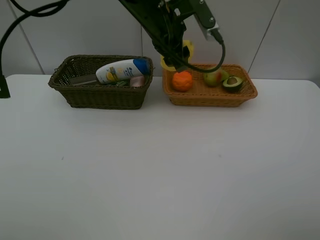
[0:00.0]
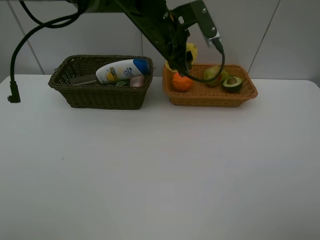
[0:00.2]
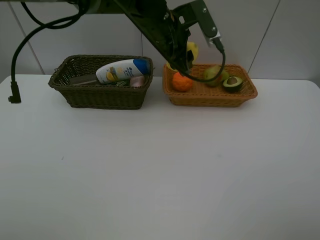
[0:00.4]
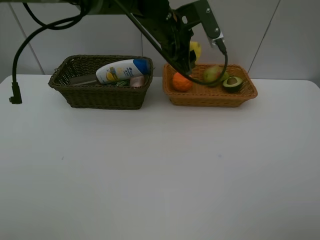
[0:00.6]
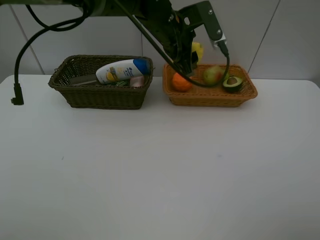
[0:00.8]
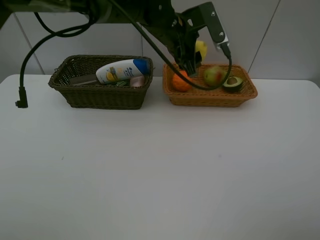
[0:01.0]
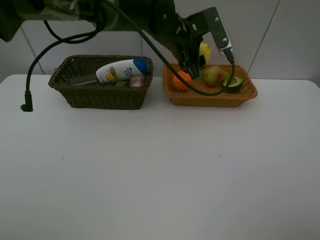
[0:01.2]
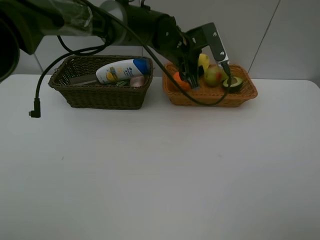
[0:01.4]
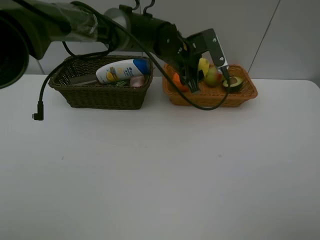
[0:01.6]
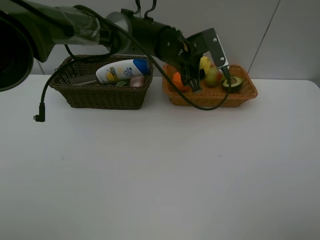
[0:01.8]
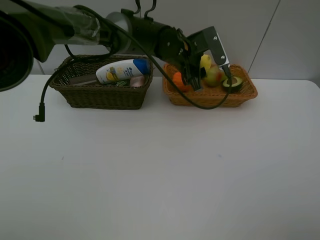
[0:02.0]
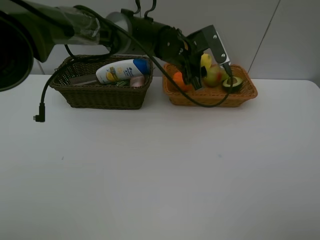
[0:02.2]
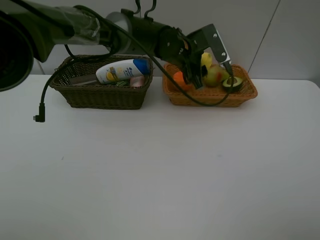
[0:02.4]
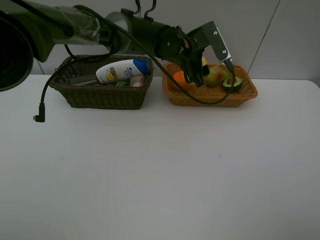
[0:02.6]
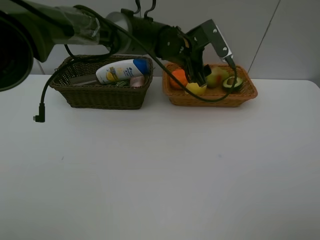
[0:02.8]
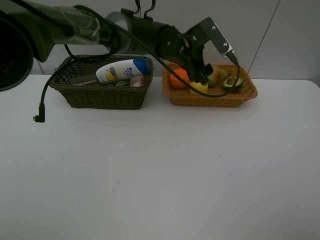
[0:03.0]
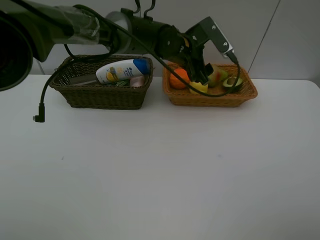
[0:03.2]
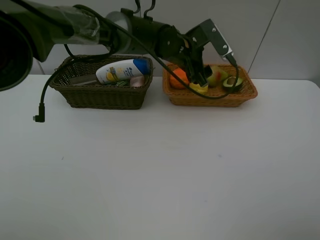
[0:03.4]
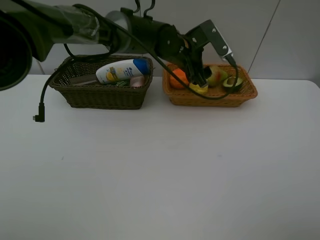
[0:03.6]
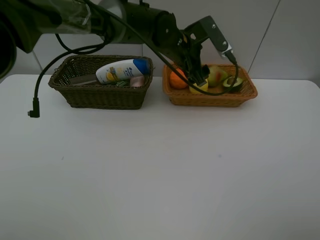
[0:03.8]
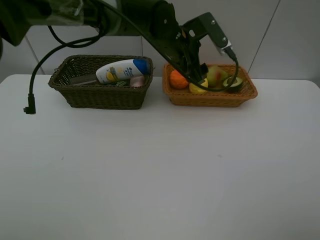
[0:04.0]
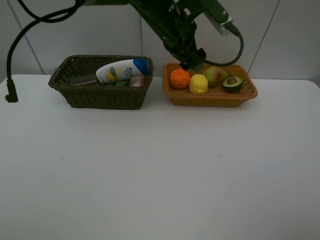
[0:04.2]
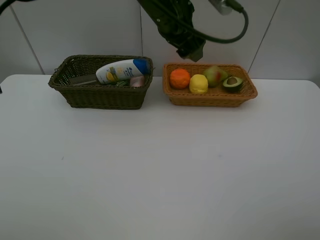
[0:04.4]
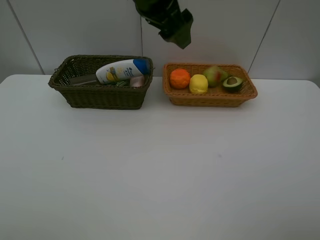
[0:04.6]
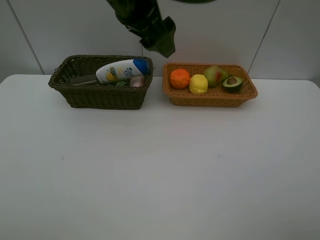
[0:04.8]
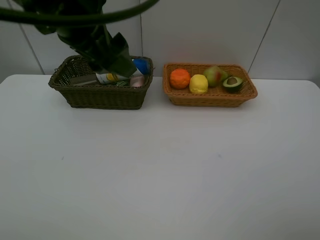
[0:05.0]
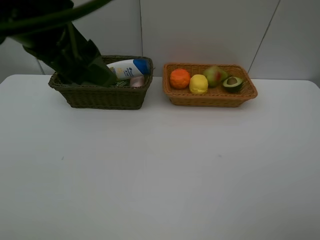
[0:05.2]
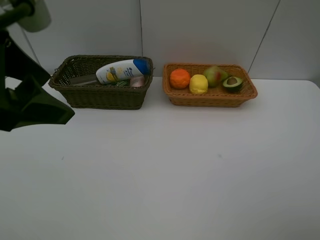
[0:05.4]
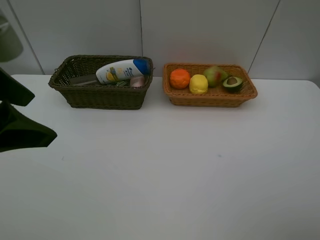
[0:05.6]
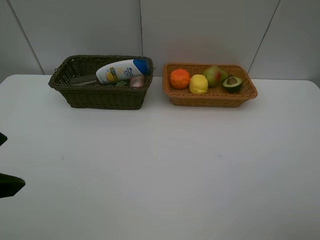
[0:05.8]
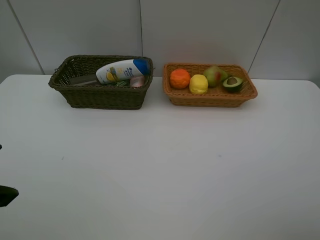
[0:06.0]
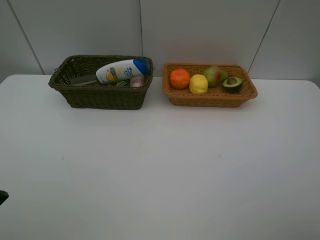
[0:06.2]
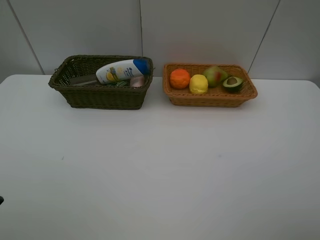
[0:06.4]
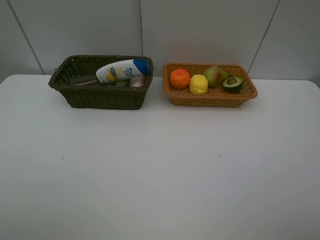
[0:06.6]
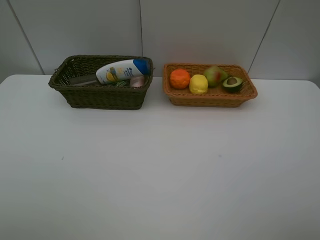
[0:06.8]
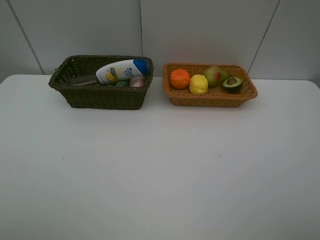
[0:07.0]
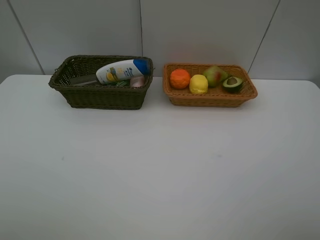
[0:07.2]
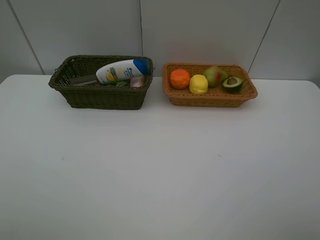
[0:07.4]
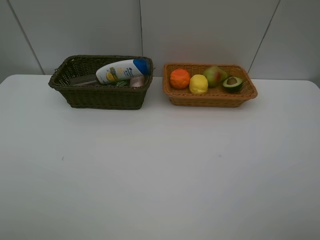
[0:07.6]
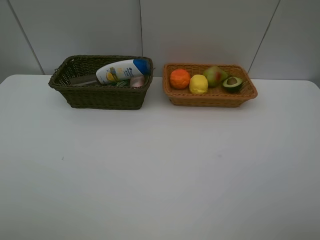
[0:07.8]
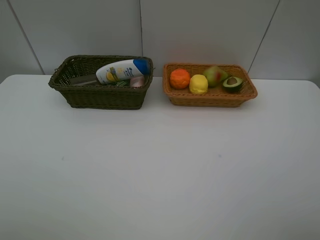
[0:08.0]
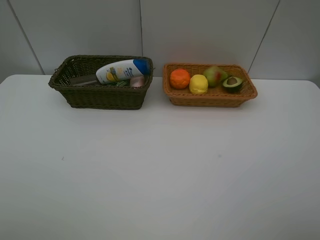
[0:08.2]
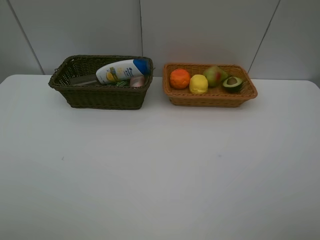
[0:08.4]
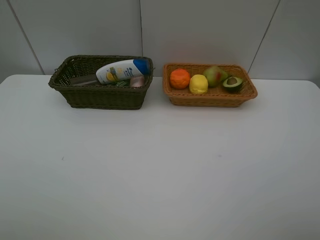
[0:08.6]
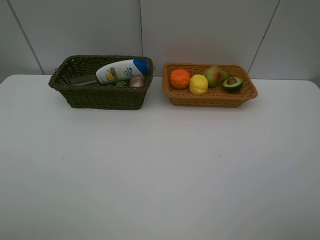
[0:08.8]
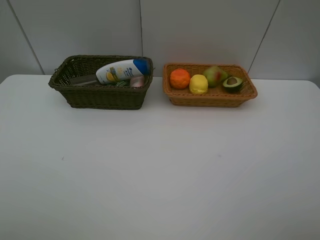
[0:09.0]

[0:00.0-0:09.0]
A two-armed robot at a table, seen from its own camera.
Task of the whole recording: Place multiple objects separately in different baskets.
Step, 0:00.0 to 0:03.0: Place the lemon in the light basket with left gripper.
0:00.0 to 0:01.6: The left gripper moves downward, roughly 10 cm.
0:01.6 to 0:03.0: There are only small adjustments of the grippers.
0:03.0 to 0:04.4: The left gripper travels upward and backward by approximately 10 cm.
0:04.4 to 0:06.0: The left gripper shifts roughly 35 cm backward and to the left.
0:07.6 to 0:09.0: Both grippers stay put.

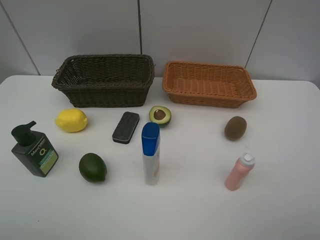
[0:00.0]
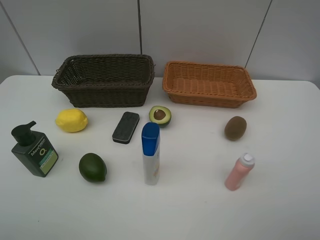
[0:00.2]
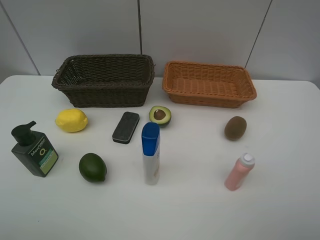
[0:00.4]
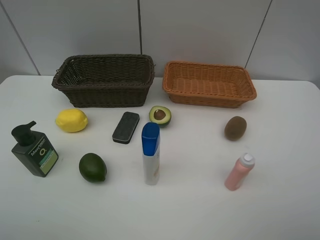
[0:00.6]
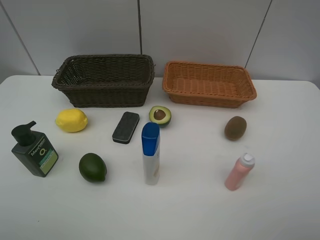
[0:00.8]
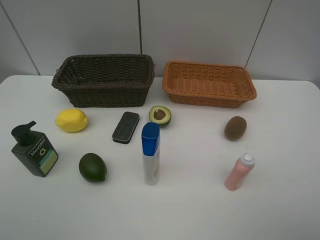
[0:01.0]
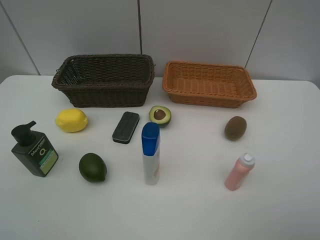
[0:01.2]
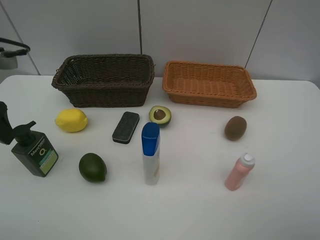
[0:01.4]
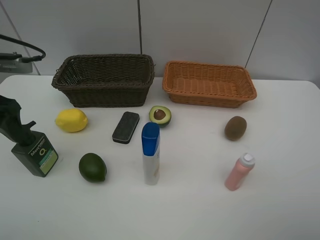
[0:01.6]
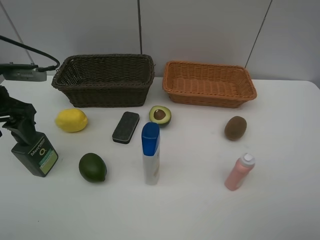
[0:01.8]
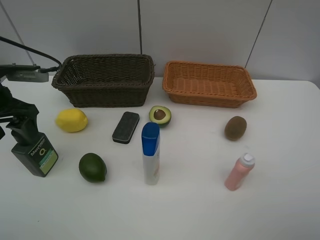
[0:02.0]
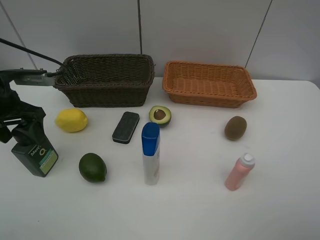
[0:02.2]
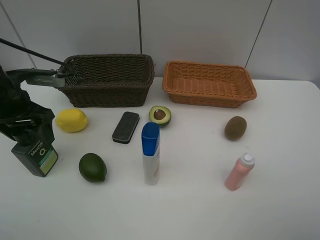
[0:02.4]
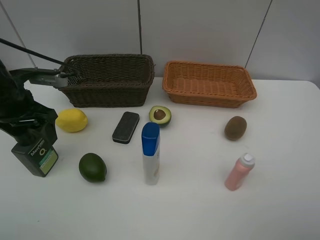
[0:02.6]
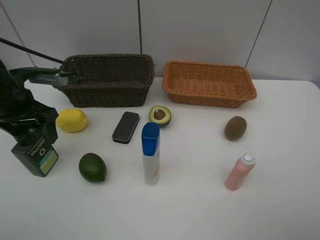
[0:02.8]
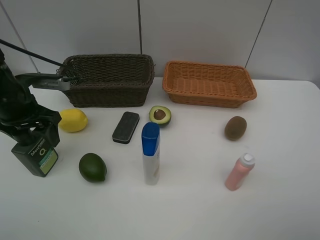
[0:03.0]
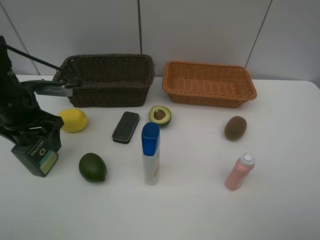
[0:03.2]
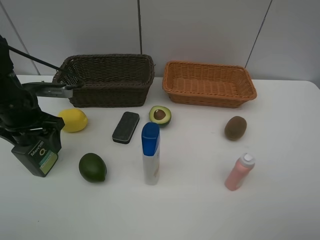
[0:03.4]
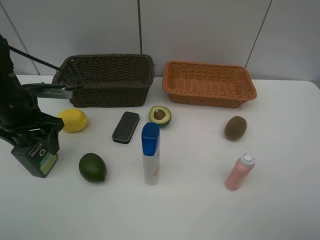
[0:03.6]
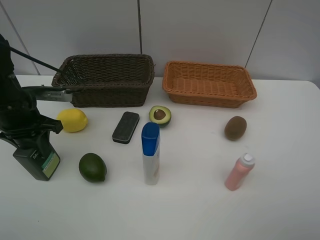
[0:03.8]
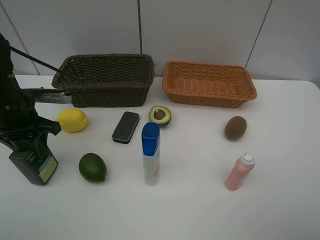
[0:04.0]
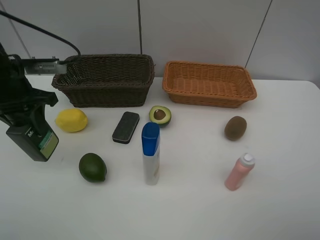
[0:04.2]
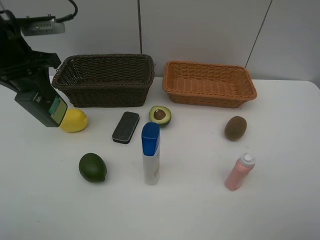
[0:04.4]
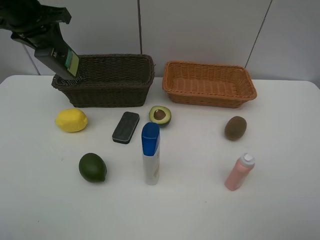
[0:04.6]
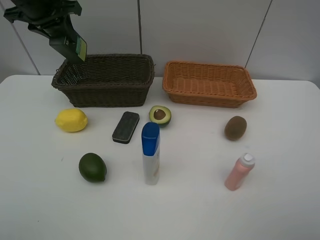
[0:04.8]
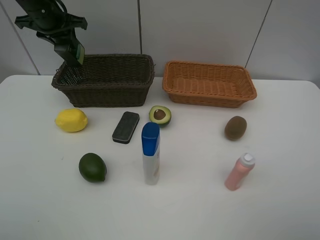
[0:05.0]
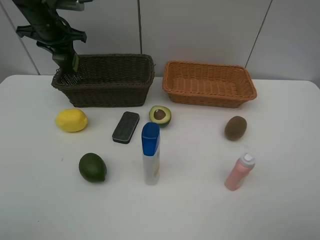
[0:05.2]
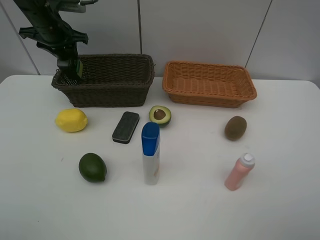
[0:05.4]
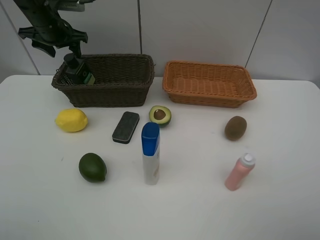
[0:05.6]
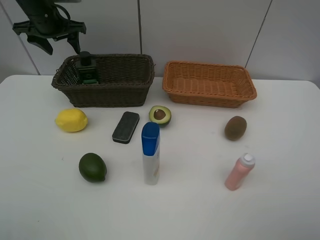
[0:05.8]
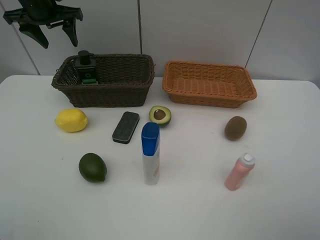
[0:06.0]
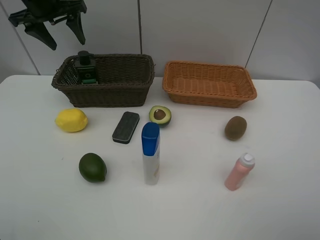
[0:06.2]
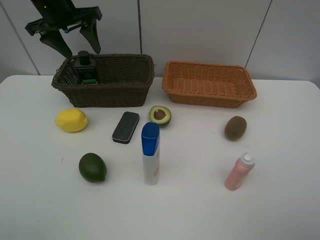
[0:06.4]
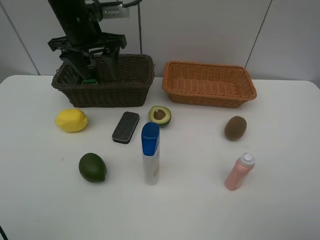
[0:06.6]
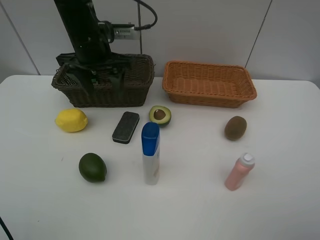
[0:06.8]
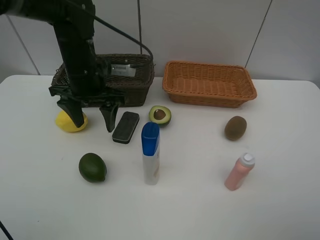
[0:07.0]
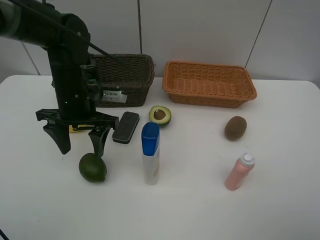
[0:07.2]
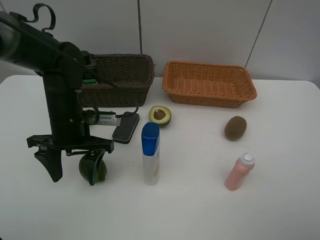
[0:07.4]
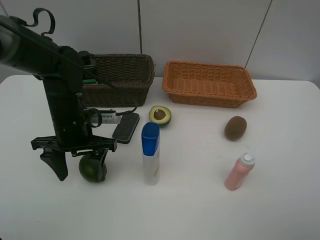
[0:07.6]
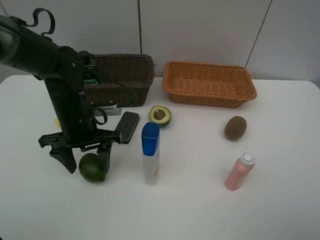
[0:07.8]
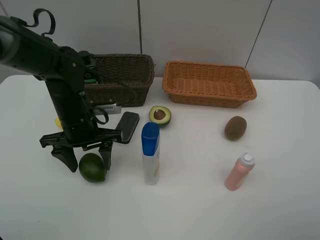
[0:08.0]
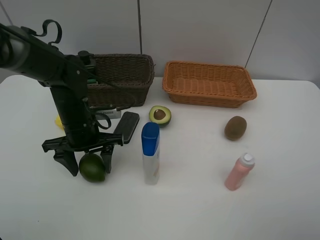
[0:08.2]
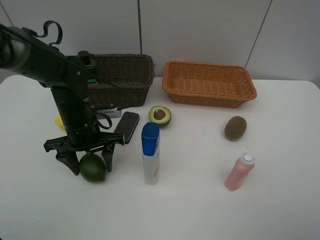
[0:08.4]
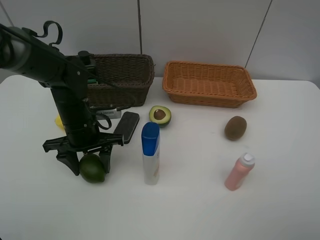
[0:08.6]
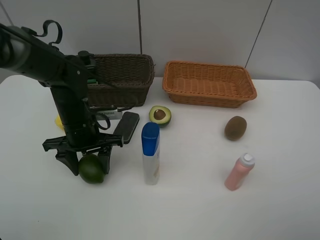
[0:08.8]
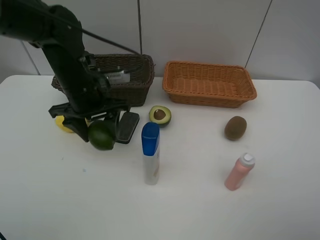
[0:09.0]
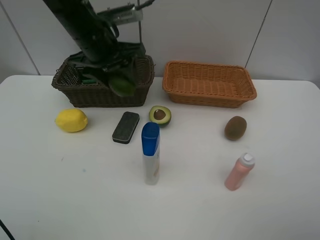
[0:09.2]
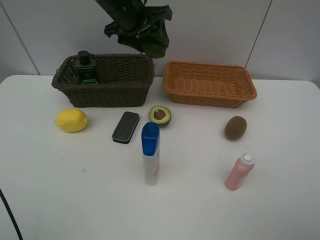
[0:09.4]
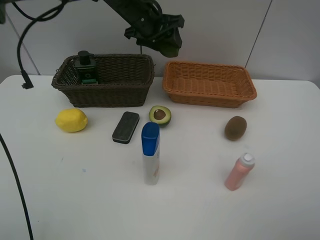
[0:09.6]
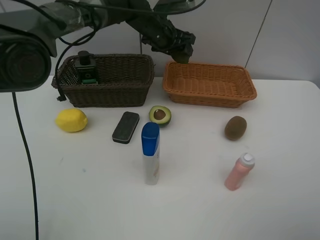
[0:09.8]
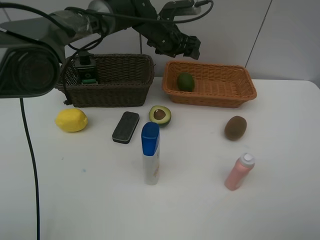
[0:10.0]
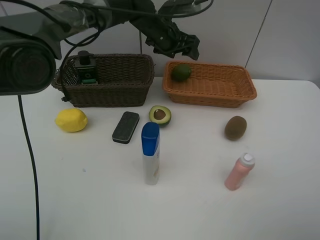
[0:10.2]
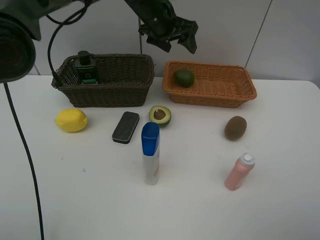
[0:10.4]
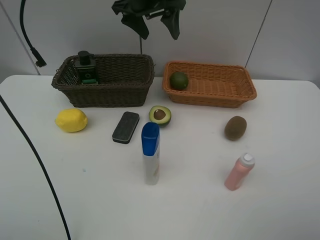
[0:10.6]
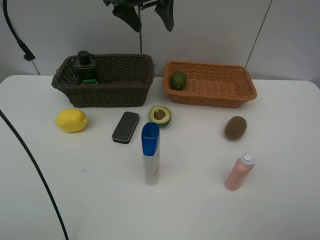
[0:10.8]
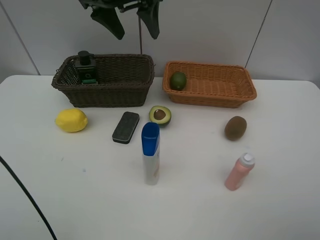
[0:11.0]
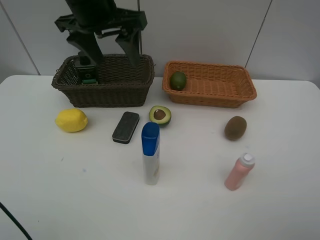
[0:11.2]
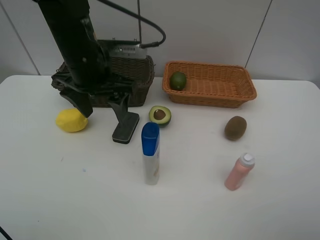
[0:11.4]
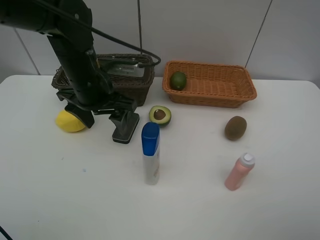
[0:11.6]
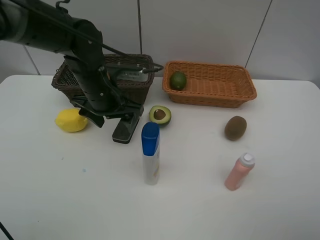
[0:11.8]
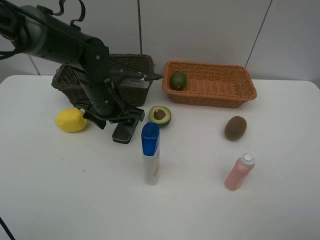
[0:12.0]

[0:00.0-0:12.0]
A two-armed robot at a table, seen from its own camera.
Task of the whole recording: Place multiple objects separately in different baskets.
Step, 0:00.0 to 0:04.0: Pick up the hard facial cleanser with left gripper.
Step, 0:04.2 to 0:05.6: Place the hard facial cleanser in the dark basket with left gripper.
Step, 0:05.8 to 0:08.8: Pick up the lime with left gripper.
Step, 0:09.0 to 0:10.0: Place the lime in the light basket with left gripper.
0:00.0 to 0:01.6: The left gripper travels forward by approximately 25 cm.
0:01.6 to 0:03.0: The left gripper is displaced downward by roughly 5 cm.
0:03.0 to 0:04.4: The left gripper is displaced upward by approximately 10 cm, and closes.
0:04.4 to 0:06.0: The left gripper shifts about 15 cm forward, and opens up.
0:06.0 to 0:07.6: The left gripper goes some 30 cm backward, downward and to the right.
0:07.6 to 0:09.0: The left gripper travels upward by about 5 cm.
0:09.0 to 0:10.4: The left gripper is displaced forward, to the right and upward by roughly 20 cm.
0:10.4 to 0:12.0: The left gripper moves downward, backward and to the left, some 20 cm.

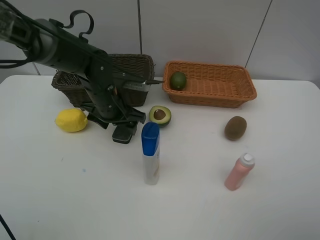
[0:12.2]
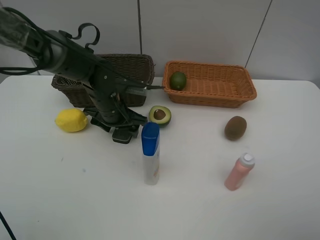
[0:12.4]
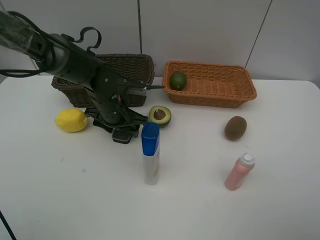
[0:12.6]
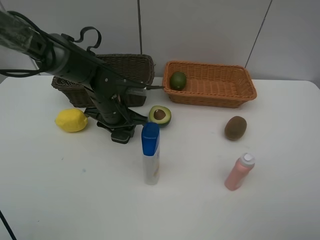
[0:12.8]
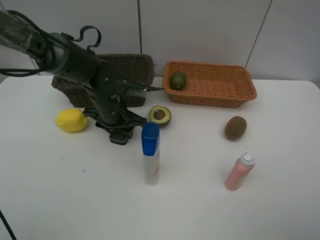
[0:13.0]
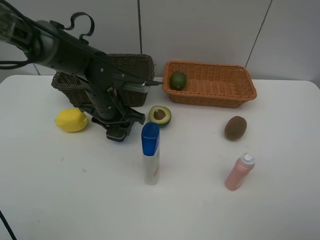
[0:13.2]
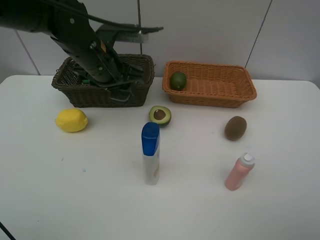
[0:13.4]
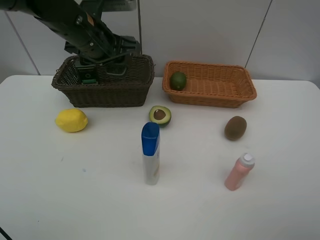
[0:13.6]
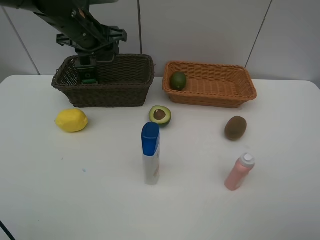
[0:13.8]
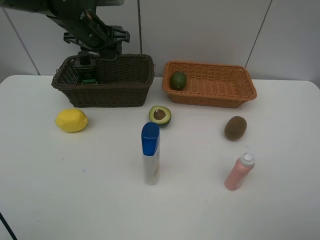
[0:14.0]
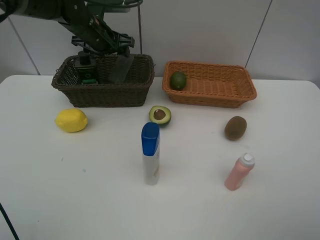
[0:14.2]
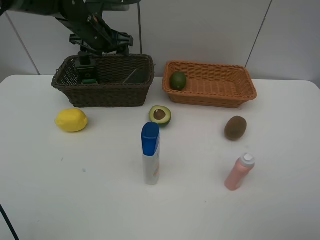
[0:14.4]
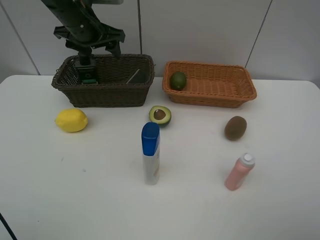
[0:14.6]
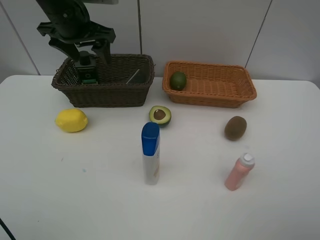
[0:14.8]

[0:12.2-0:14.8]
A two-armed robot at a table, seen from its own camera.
Task of the whole recording: Place multiple objects separately in different baskets.
Step, 0:13.4 to 0:14.4: Place the blackboard eraser in the dark basket with left gripper.
0:12.2 to 0:13.4: The left gripper heads upward, covering some 10 cm, and closes its fingers.
0:13.4 to 0:14.8: The left gripper heads to the left and upward, covering approximately 10 cm, and opens up.
